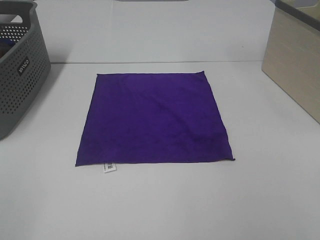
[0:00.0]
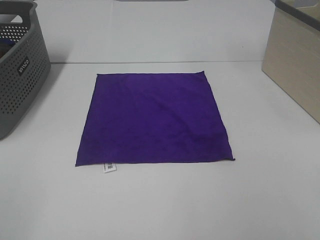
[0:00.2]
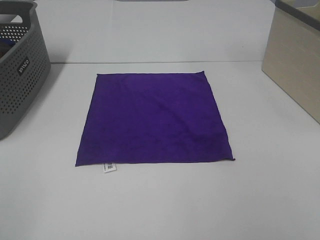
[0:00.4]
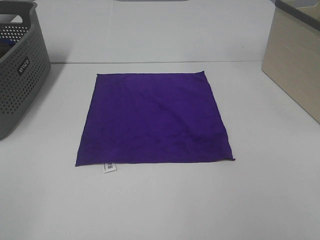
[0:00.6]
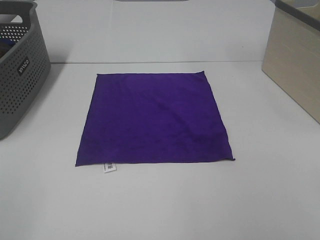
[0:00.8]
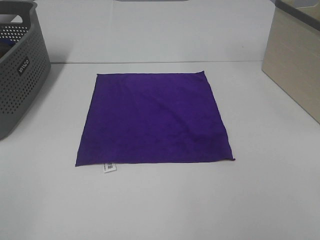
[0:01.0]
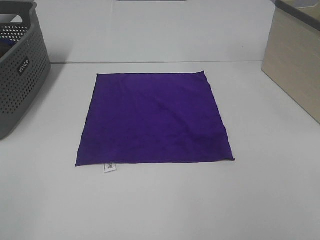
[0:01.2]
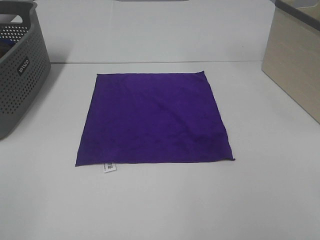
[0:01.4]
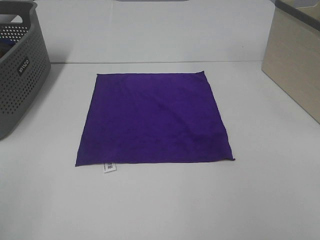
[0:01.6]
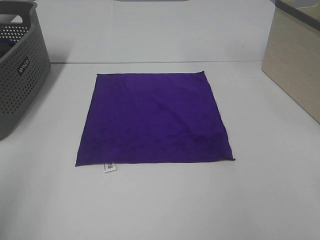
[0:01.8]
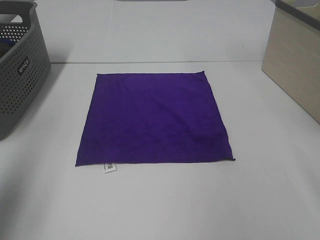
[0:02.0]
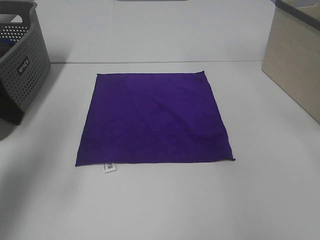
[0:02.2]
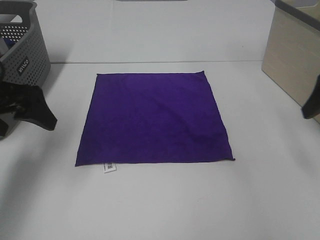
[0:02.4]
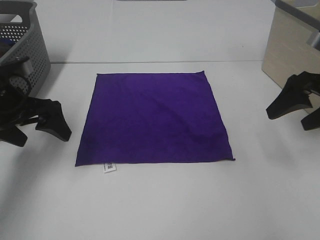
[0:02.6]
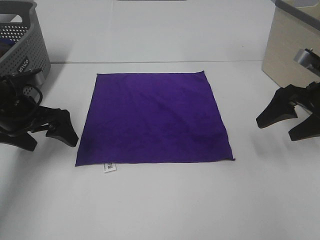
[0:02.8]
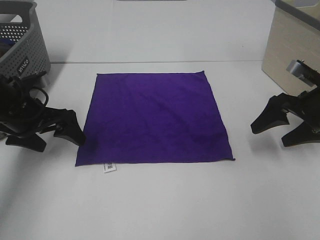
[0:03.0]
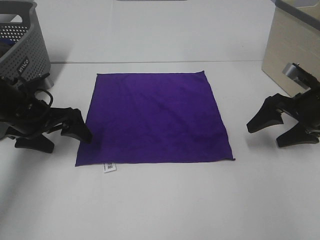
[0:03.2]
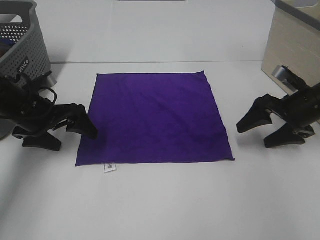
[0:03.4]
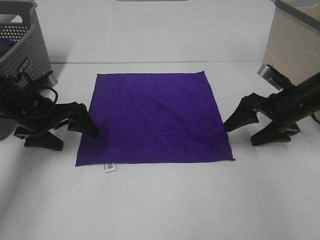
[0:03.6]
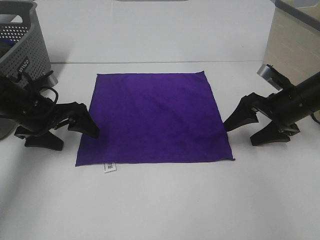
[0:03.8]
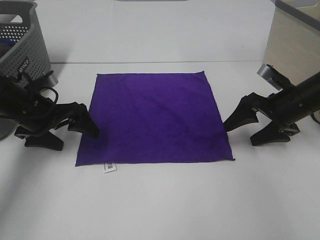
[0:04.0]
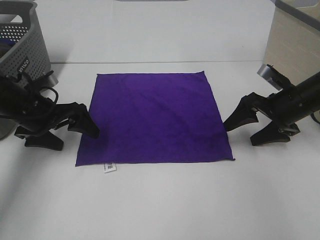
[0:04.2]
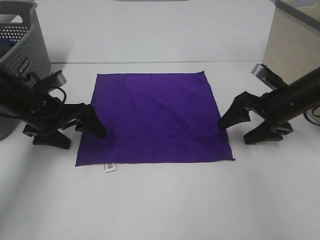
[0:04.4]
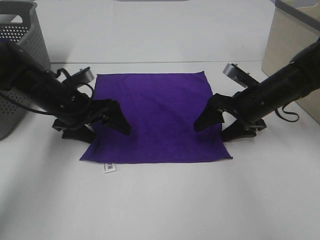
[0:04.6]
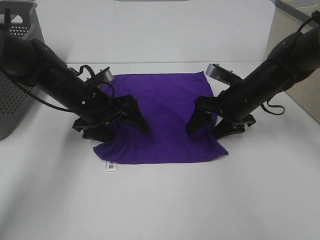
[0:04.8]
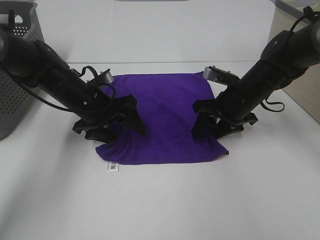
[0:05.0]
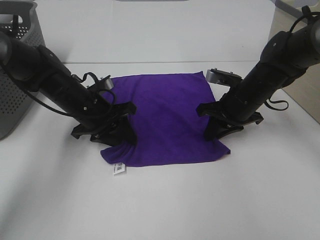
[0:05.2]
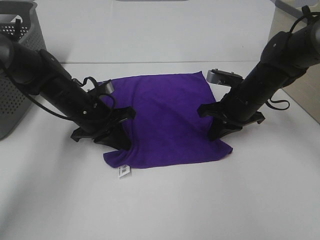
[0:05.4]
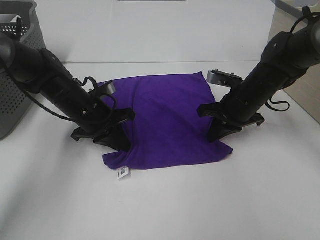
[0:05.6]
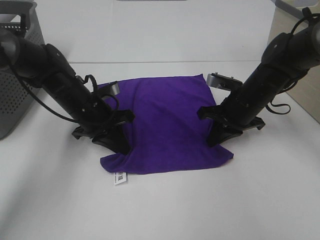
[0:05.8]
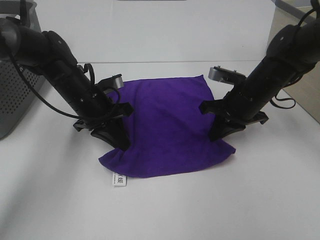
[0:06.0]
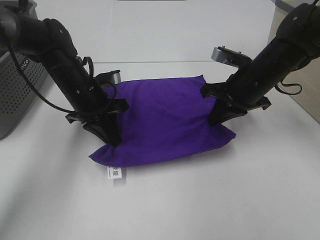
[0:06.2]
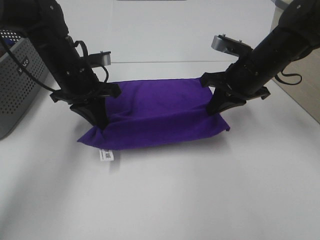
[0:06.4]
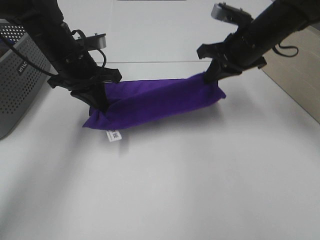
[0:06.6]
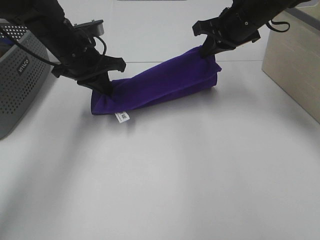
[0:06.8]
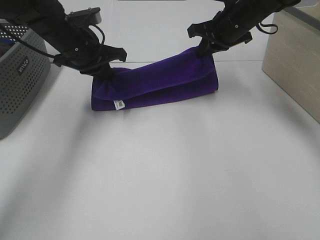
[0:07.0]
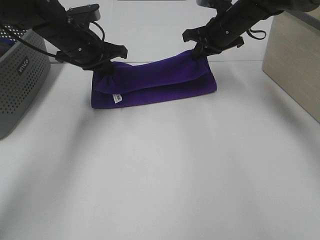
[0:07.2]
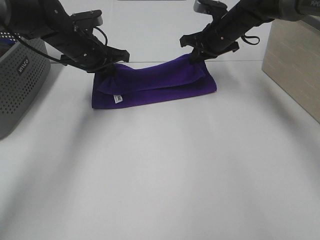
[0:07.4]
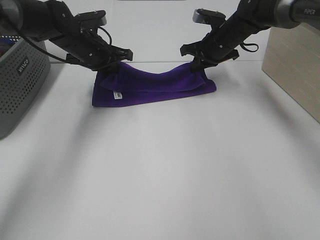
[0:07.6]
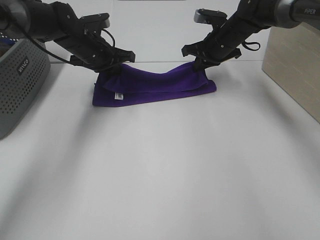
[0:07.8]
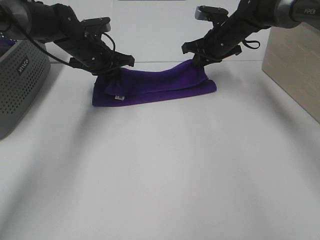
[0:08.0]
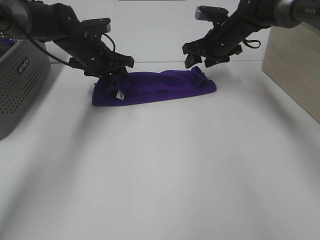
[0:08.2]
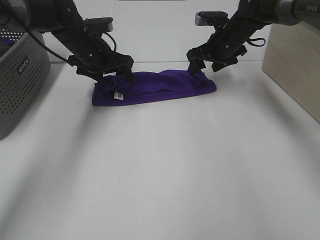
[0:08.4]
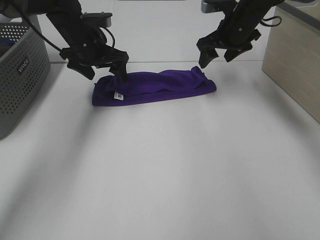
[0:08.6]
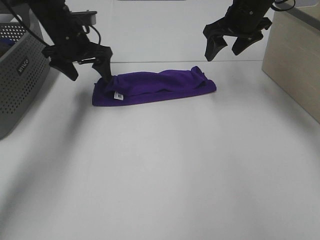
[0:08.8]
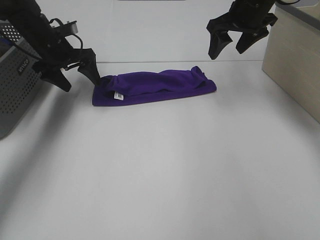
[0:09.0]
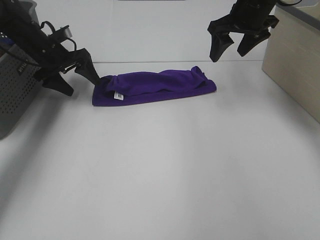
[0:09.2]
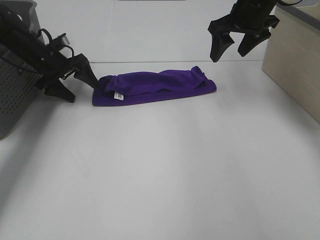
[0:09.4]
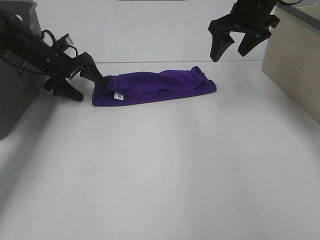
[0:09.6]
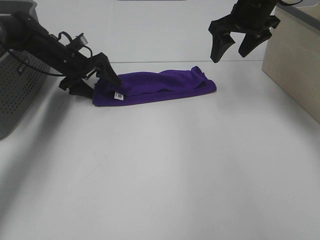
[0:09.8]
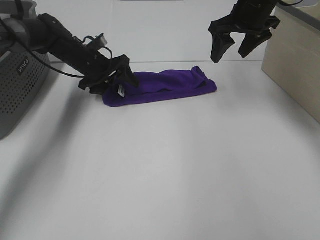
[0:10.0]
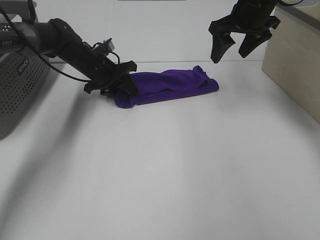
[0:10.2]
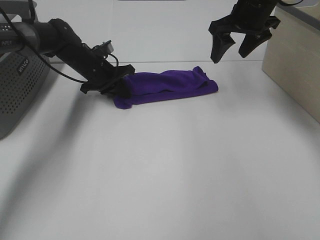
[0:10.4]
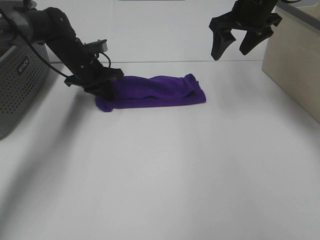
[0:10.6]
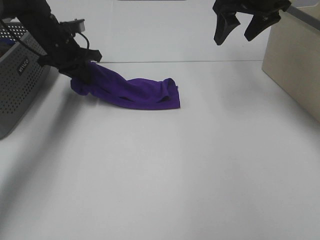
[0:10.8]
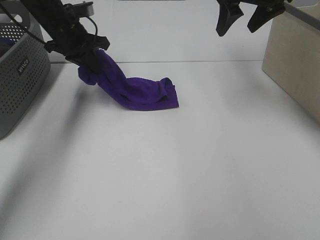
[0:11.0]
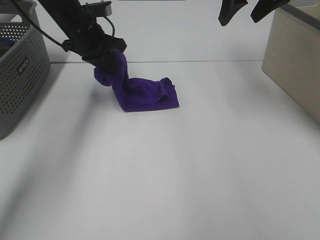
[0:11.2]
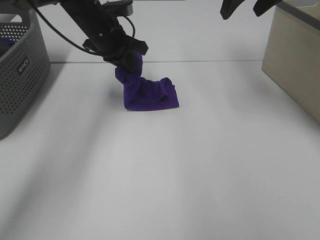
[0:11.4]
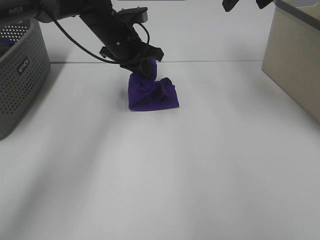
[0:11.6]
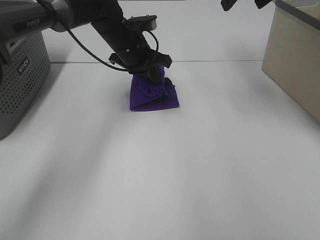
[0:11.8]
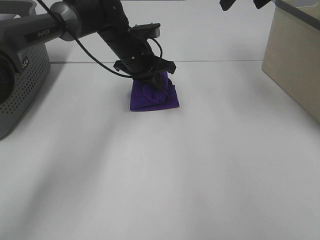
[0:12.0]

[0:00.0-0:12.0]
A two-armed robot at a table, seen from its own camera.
Task of the whole recording: Fold towels.
Step, 0:00.0 to 0:05.4: Left hand: grab the bottom left corner of purple towel.
Step, 0:00.0 to 0:05.4: Right hand: grab the bottom right corner of purple towel.
Step, 0:05.6 to 0:08.0: Left hand: fold the purple towel up.
Step, 0:05.6 to 0:08.0: Right hand: fold the purple towel up.
0:01.6 to 0:03.0: The grippers both shift forward and downward by approximately 35 cm.
0:03.0 to 0:04.4: The right gripper heads to the left, covering about 5 cm.
0:04.4 to 0:06.0: The left gripper is displaced to the right by approximately 10 cm, and closes up; the right gripper moves to the left, roughly 5 cm, and closes up.
0:06.0 to 0:07.6: Both grippers move forward, approximately 15 cm.
0:07.6 to 0:09.0: The left gripper shifts about 10 cm to the left, and opens its fingers; the right gripper heads upward, covering roughly 10 cm, and opens.
0:09.0 to 0:10.4: The left gripper goes about 10 cm to the right and downward, and closes its fingers.
0:10.4 to 0:12.0: The right gripper is displaced upward by approximately 10 cm, while the left gripper travels to the right and upward by roughly 10 cm.

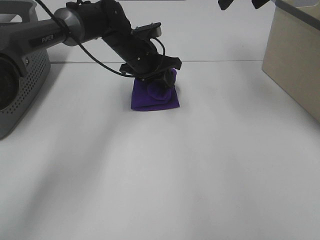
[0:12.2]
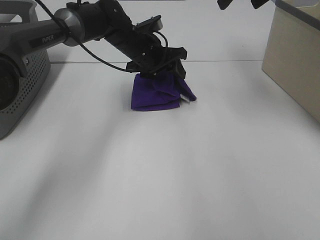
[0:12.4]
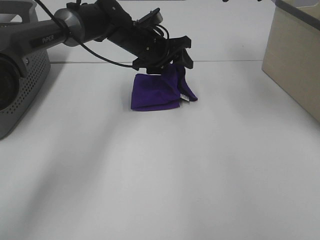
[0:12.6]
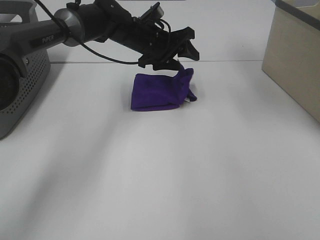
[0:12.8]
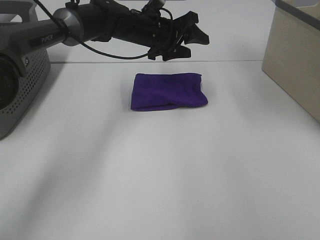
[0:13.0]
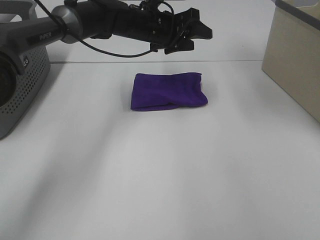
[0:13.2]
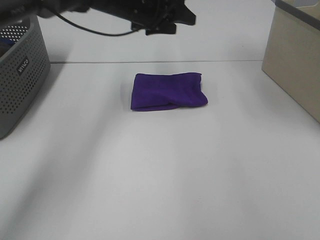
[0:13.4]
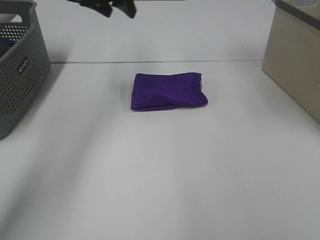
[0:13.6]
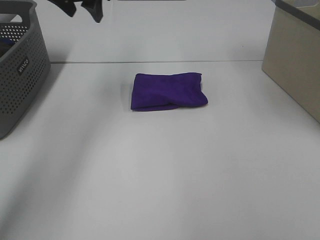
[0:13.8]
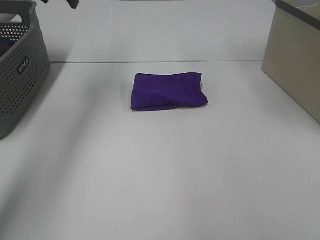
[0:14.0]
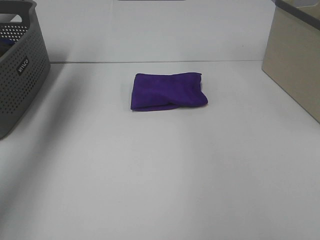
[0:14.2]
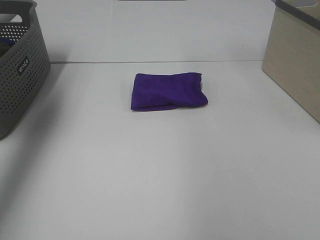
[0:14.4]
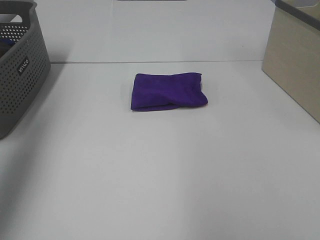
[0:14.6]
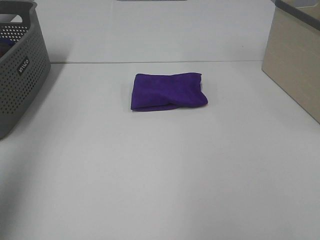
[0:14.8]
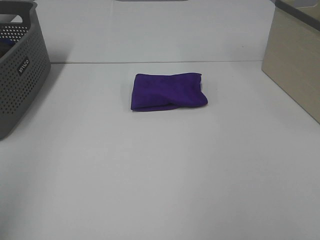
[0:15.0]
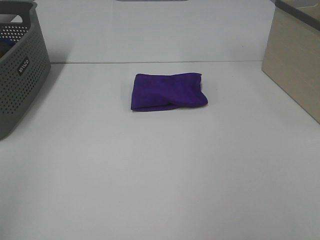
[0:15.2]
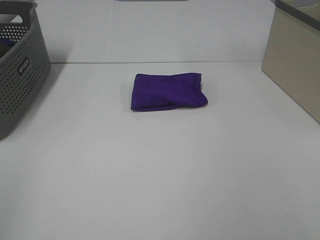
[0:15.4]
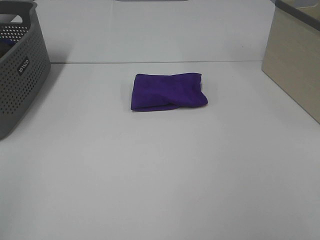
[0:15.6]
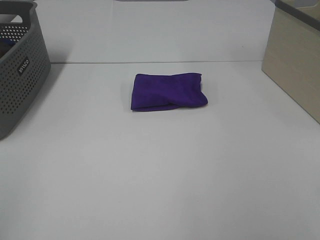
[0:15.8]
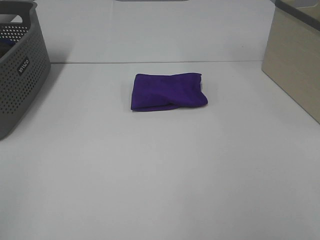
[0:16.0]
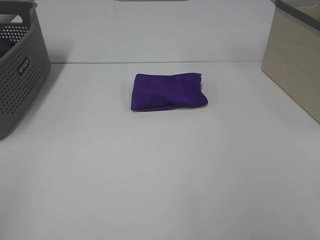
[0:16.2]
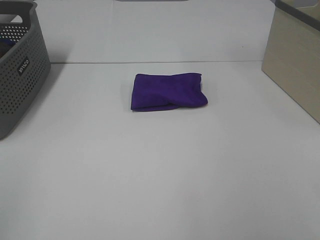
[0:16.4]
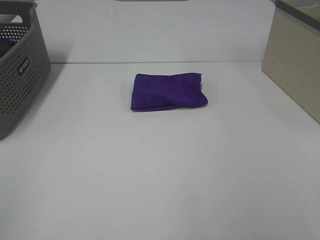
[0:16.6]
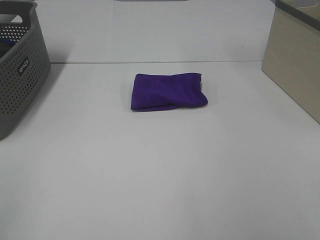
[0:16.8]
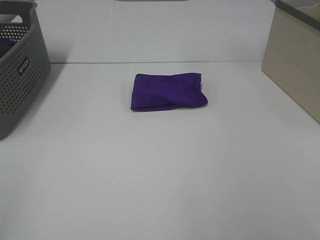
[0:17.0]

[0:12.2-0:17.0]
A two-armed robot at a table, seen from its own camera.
Task of the whole recording: Fold towels.
0:12.2 to 0:13.8: The right gripper is displaced upward by about 5 cm, while the left gripper heads upward and to the left, covering approximately 20 cm.
0:13.8 to 0:15.4: The grippers both shift backward by some 40 cm.
